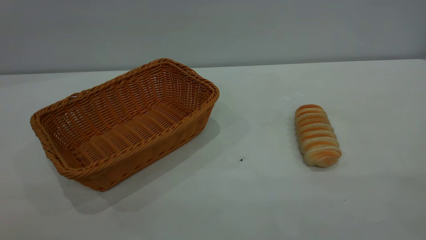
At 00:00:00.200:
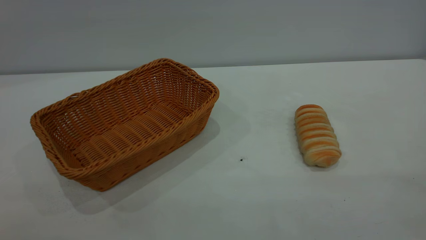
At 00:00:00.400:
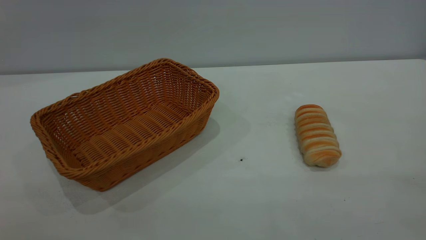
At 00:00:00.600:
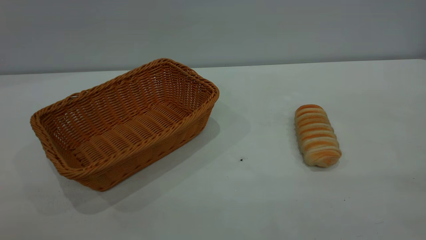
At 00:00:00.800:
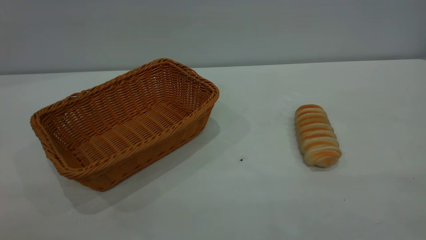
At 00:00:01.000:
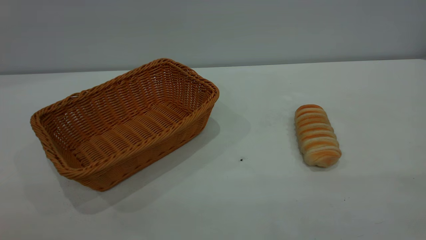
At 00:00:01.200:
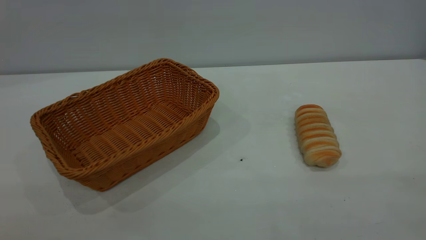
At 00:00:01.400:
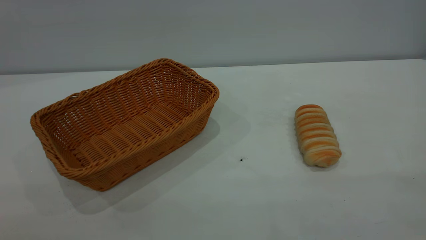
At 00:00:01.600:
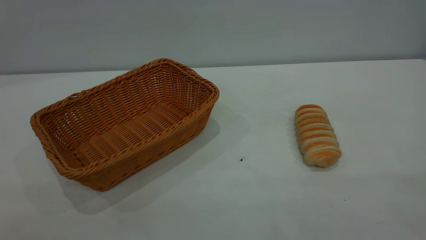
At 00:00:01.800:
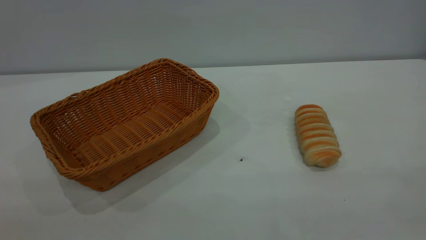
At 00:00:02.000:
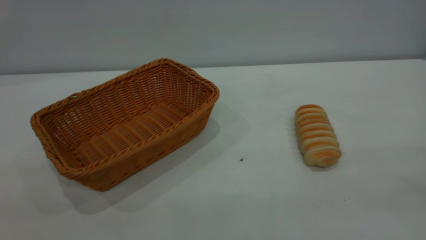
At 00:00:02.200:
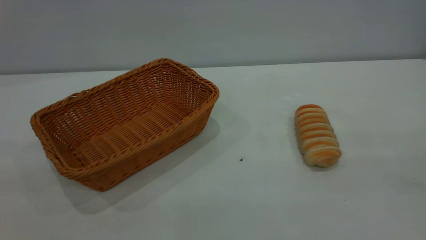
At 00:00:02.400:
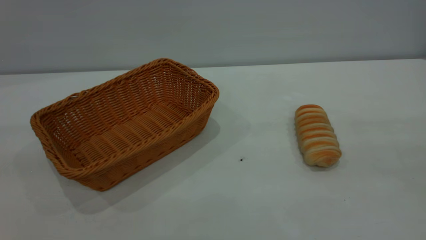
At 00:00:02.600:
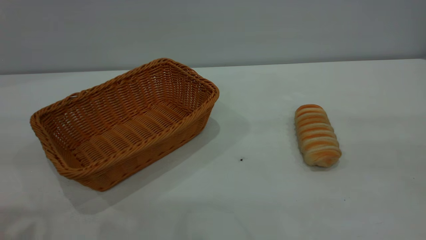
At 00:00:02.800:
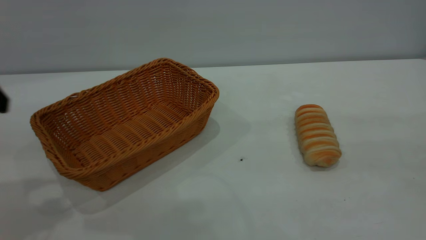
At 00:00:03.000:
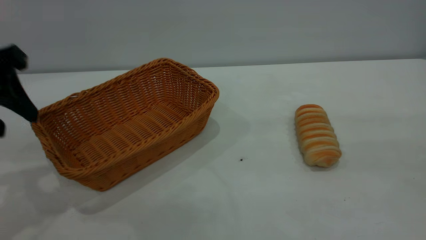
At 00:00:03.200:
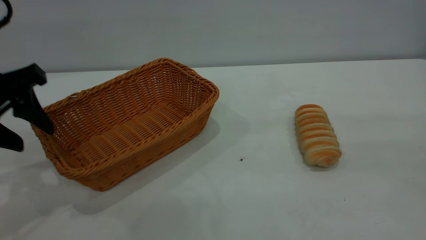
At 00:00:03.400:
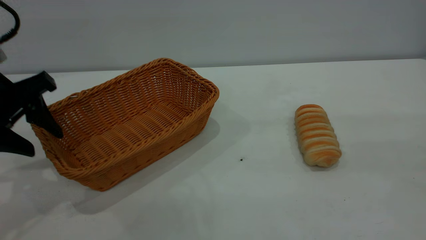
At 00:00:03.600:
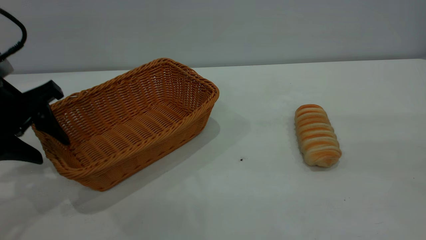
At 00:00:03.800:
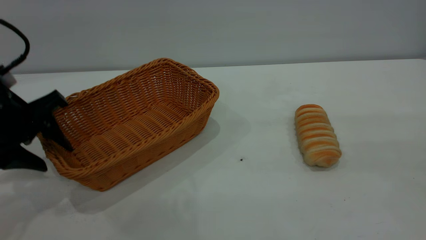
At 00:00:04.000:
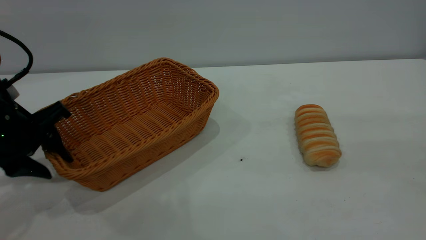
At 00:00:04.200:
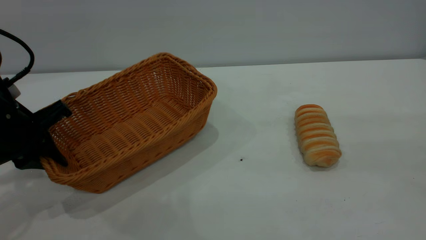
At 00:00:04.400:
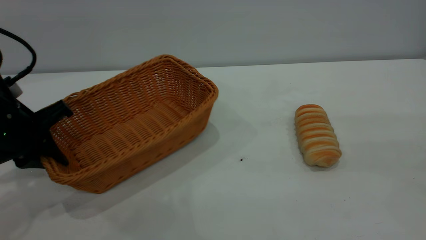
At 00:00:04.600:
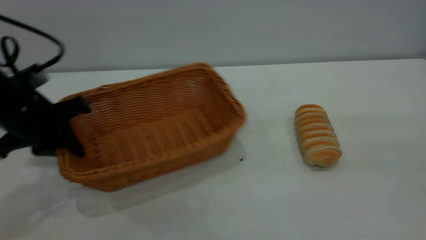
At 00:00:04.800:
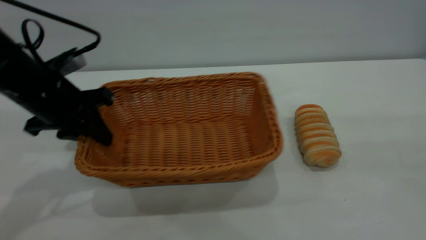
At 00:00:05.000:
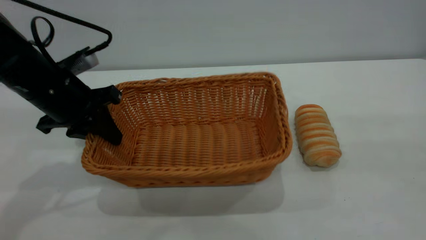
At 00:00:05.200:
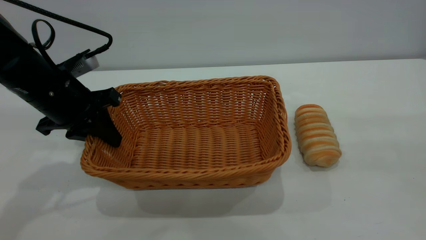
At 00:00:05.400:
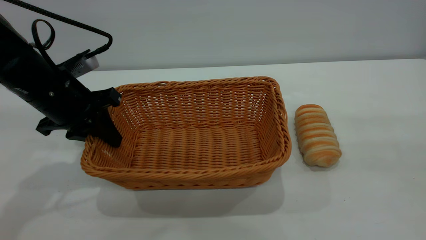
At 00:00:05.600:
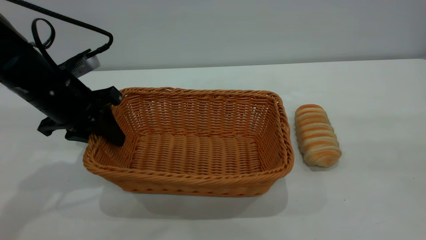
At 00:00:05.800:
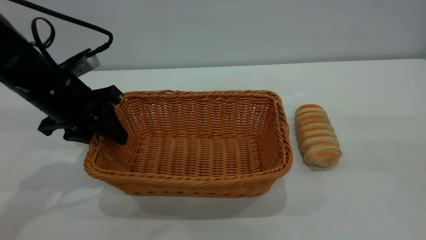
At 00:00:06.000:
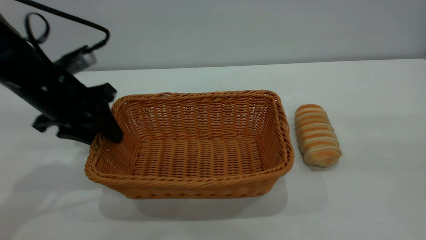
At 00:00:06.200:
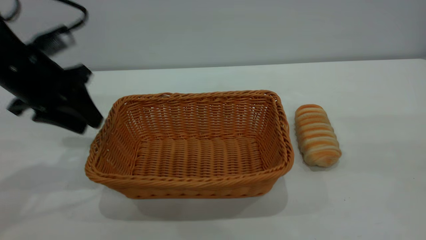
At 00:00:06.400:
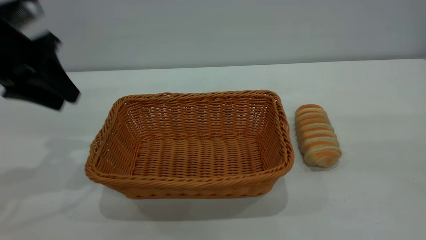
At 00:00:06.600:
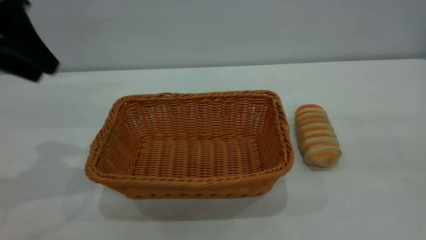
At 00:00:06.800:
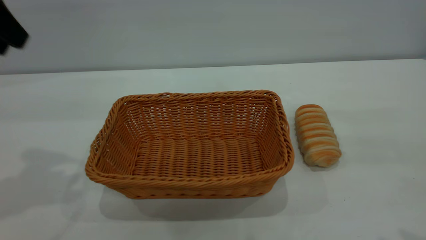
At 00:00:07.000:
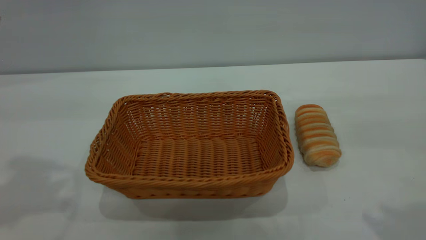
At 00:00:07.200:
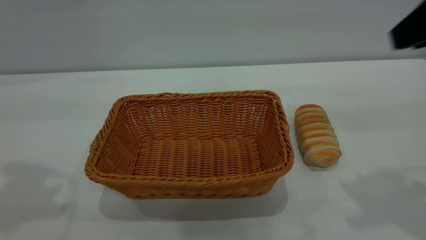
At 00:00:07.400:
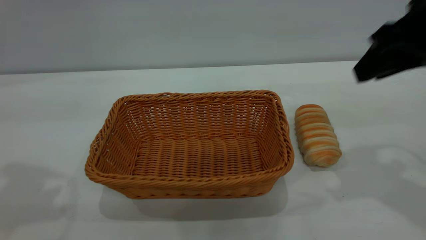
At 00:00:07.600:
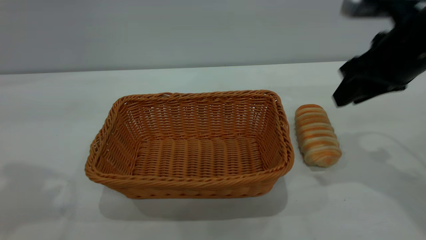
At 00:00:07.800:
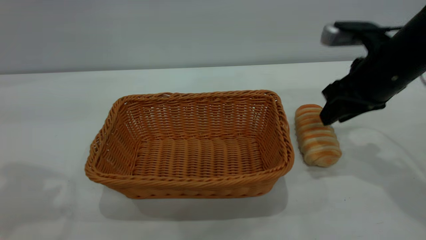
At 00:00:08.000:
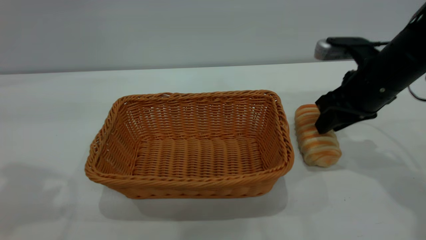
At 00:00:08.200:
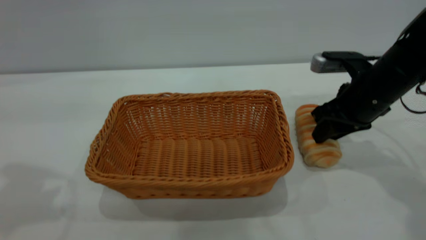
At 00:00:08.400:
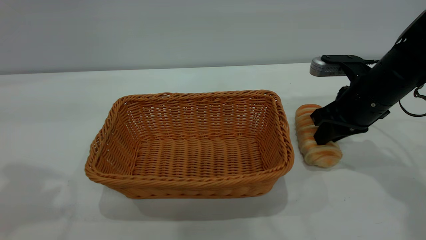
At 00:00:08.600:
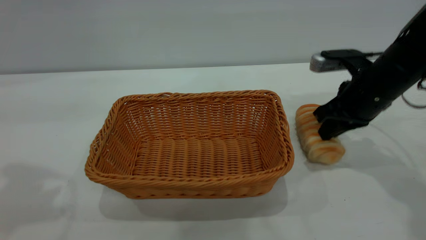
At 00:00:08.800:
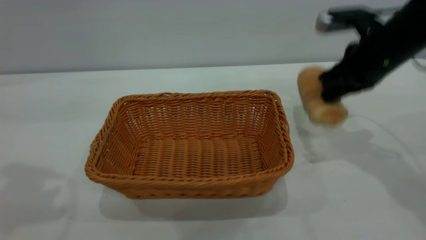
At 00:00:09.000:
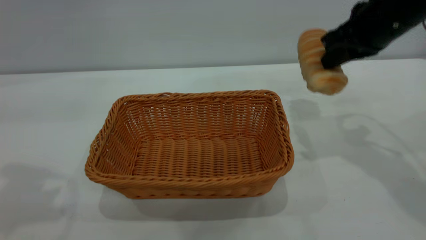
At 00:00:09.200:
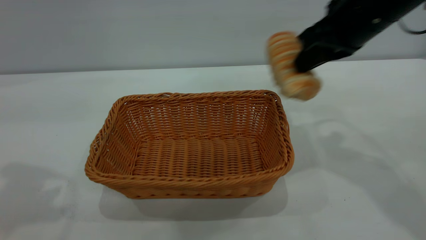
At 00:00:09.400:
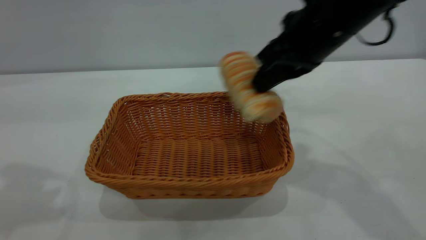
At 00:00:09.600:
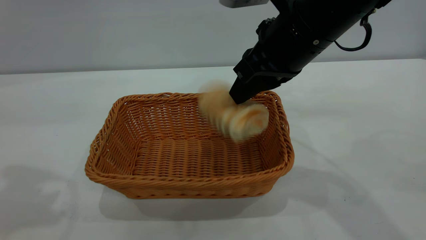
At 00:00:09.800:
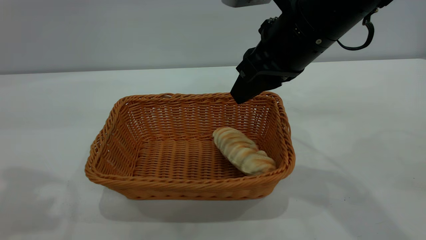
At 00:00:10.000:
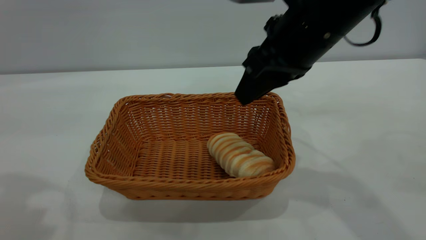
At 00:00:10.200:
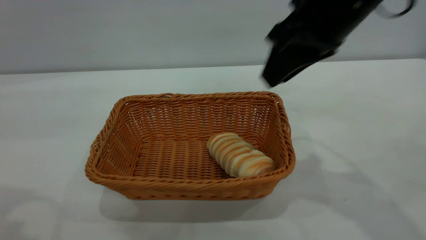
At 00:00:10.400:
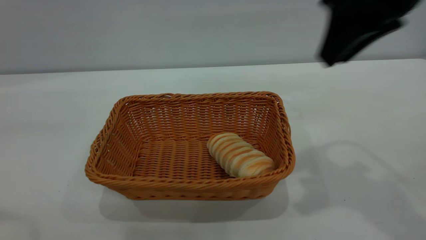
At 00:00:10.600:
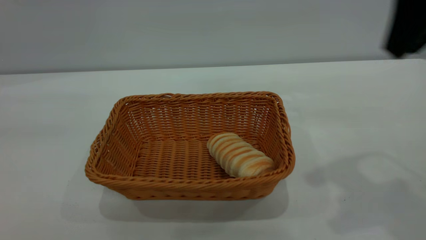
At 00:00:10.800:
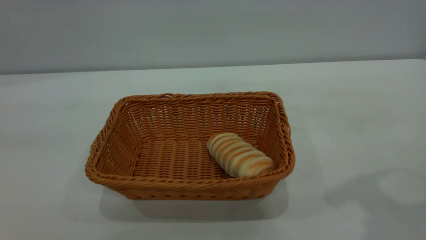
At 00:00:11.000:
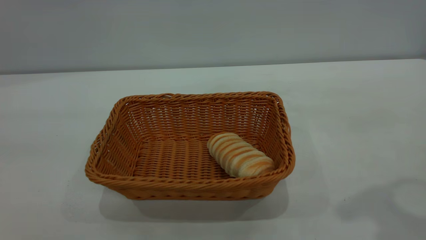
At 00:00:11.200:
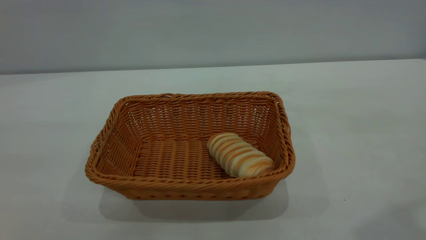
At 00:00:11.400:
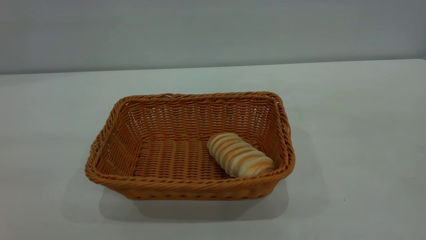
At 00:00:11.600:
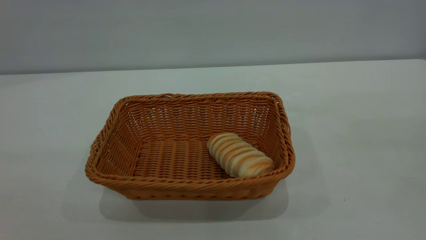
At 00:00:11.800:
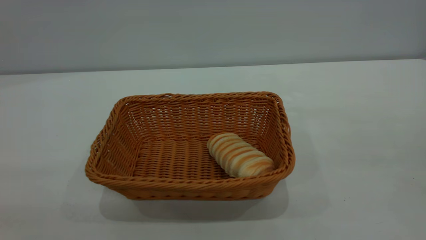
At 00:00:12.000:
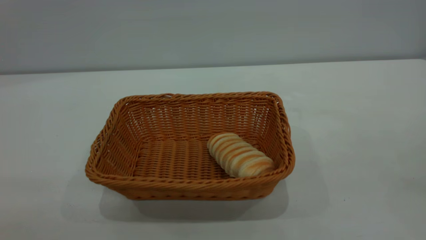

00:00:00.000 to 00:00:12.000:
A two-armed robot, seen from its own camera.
Task of the whole recording: One hand grasps the yellow basket and places it in the middle of the table, while the other hand picks up the long bread and puts it into the yellow basket.
Step, 00:00:00.000 to 00:00:06.200: Move the basket to the center of view.
Step, 00:00:08.800 to 00:00:10.200: place the bread into the basket.
00:00:00.000 to 00:00:01.600: Both grippers stay about where they are.
00:00:01.600 to 00:00:03.000: The left gripper travels forward by about 30 cm.
00:00:03.000 to 00:00:04.400: The left gripper goes about 10 cm downward, and closes its fingers.
00:00:04.400 to 00:00:06.000: The left gripper shifts by approximately 5 cm, and opens its fingers.
00:00:06.000 to 00:00:07.600: The right gripper shifts approximately 25 cm forward and downward. The left gripper moves upward and backward, approximately 25 cm.
00:00:07.600 to 00:00:09.000: The right gripper travels downward and back again, about 10 cm each way, and closes its fingers.
00:00:09.000 to 00:00:10.400: The right gripper heads upward and backward, covering roughly 10 cm, moves some 10 cm to the left and comes back, and opens; the left gripper travels backward by about 10 cm.
00:00:10.400 to 00:00:12.000: The right gripper travels backward and upward by approximately 35 cm.

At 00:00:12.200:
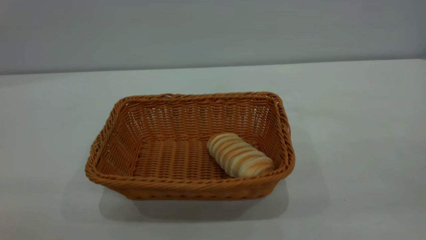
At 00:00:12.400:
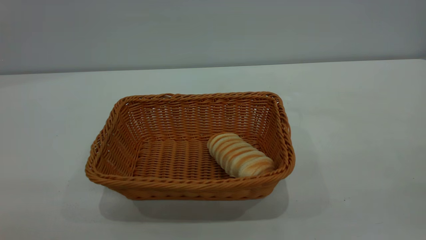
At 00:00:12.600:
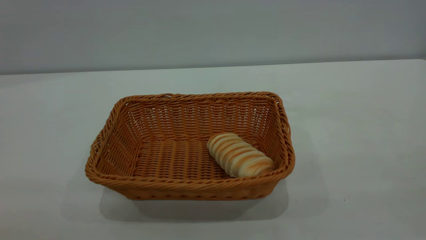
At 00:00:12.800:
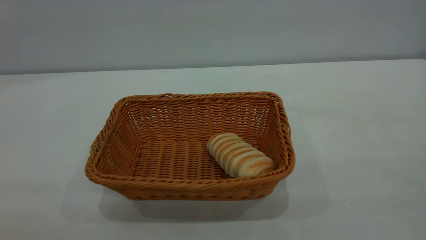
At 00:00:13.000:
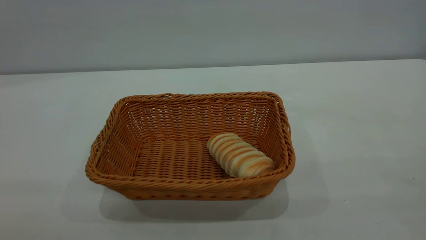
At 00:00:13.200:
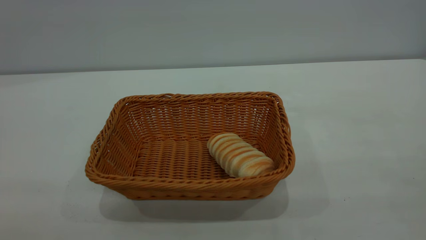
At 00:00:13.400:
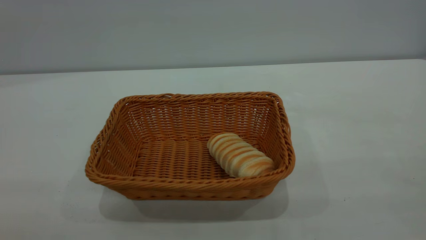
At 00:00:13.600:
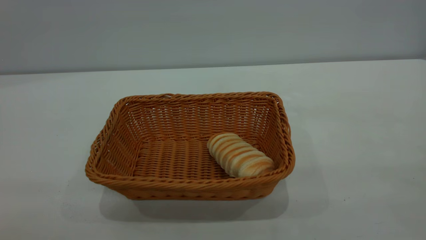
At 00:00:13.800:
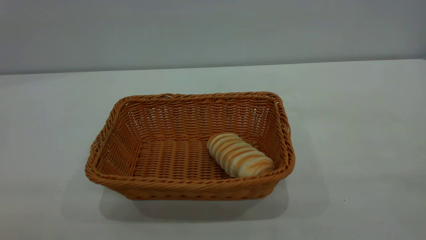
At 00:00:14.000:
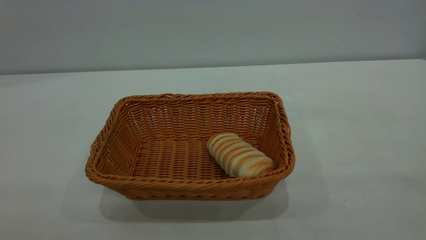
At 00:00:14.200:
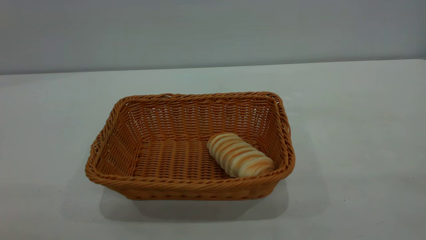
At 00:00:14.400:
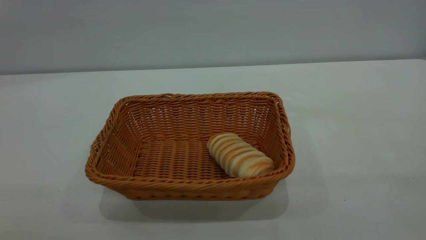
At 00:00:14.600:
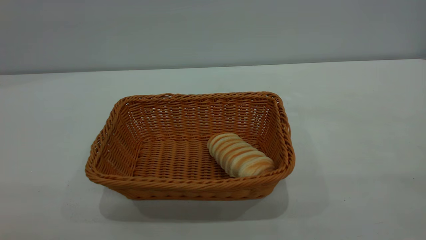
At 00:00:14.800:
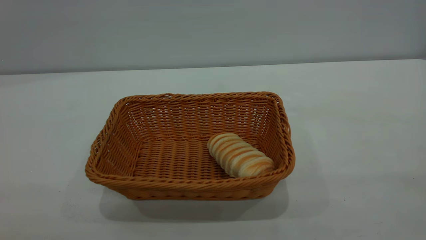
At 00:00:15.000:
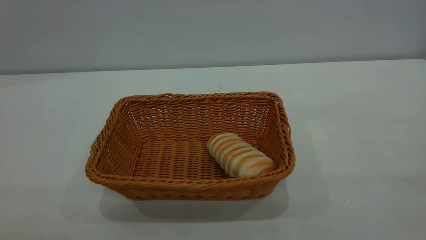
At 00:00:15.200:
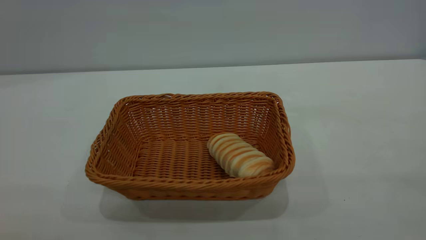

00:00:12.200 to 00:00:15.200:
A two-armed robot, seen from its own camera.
Task of the whole recording: One hand grasps the yellow basket and places it in the middle of the table, while the other hand picks up the long bread and puts it into the yellow basket.
00:00:13.800 to 00:00:15.200: Neither gripper changes place.
